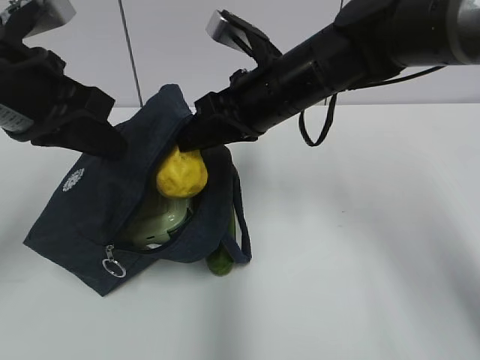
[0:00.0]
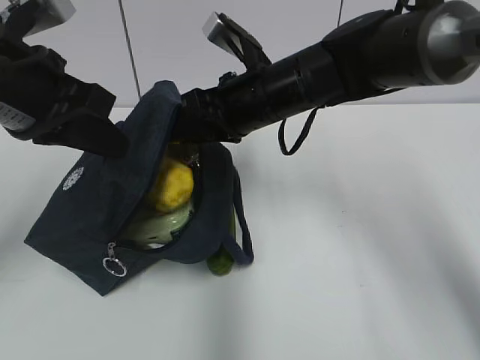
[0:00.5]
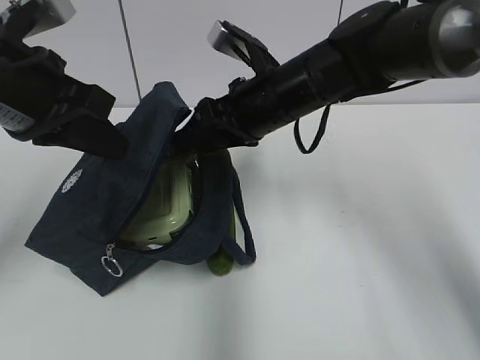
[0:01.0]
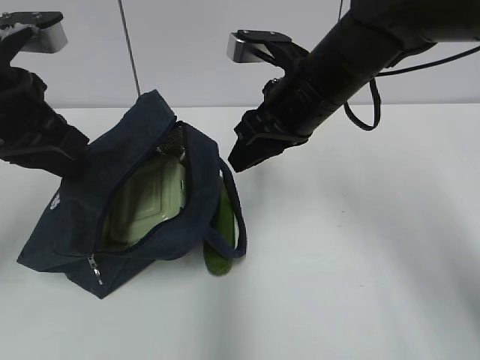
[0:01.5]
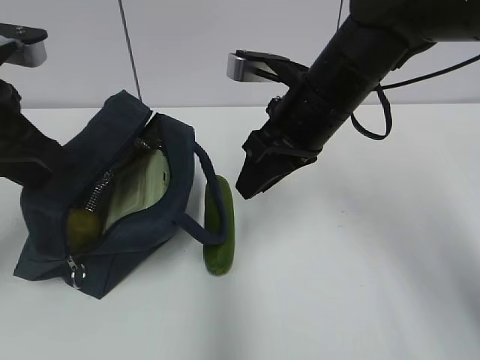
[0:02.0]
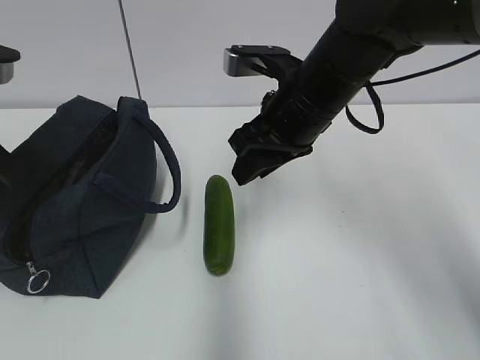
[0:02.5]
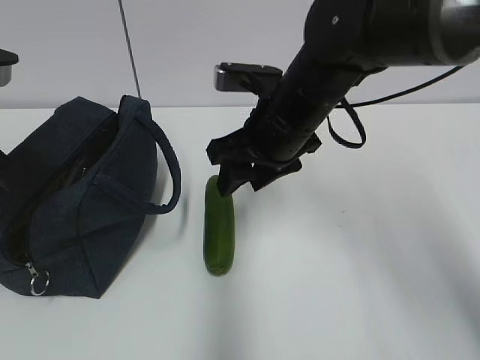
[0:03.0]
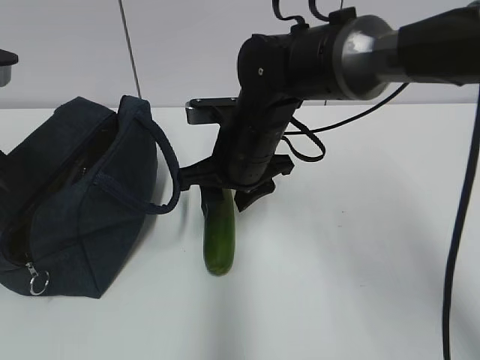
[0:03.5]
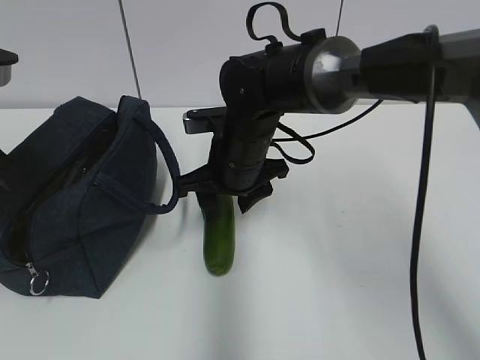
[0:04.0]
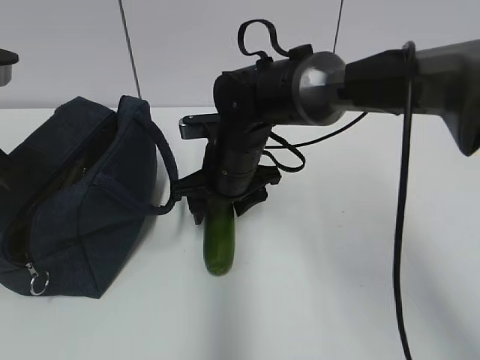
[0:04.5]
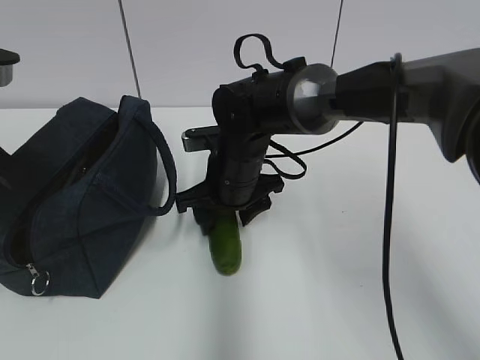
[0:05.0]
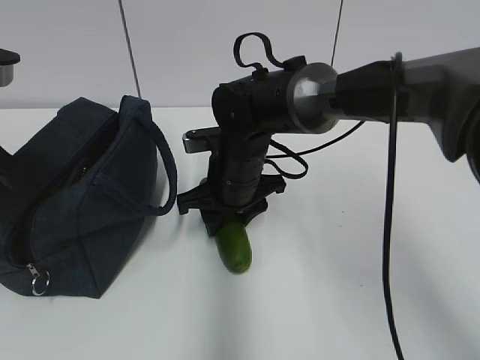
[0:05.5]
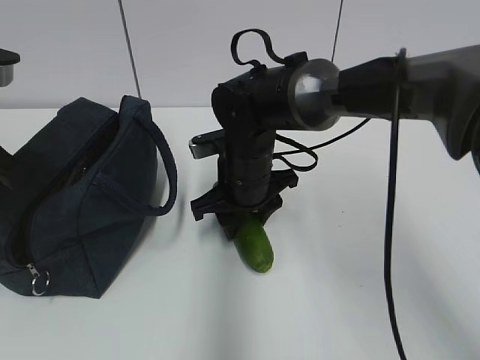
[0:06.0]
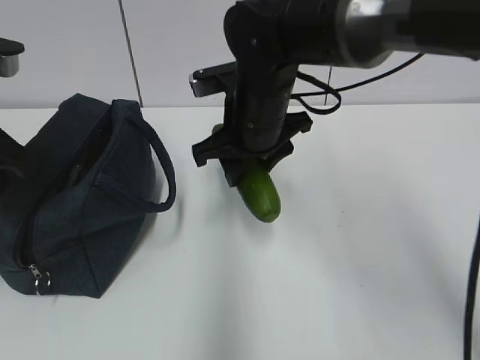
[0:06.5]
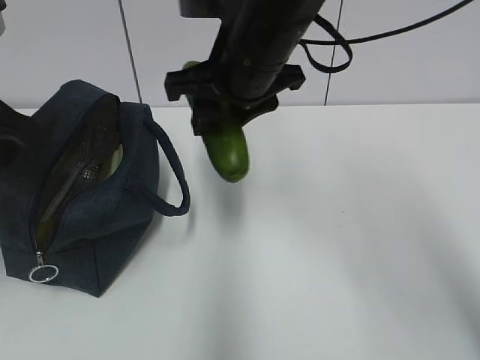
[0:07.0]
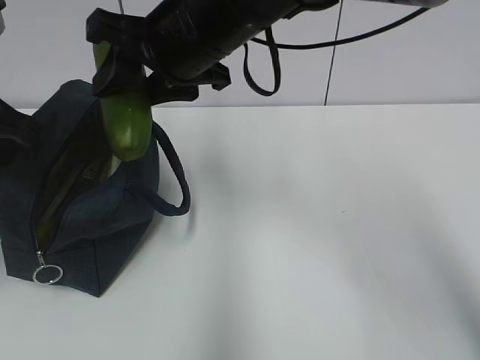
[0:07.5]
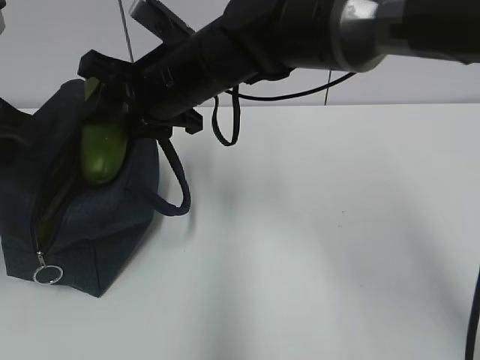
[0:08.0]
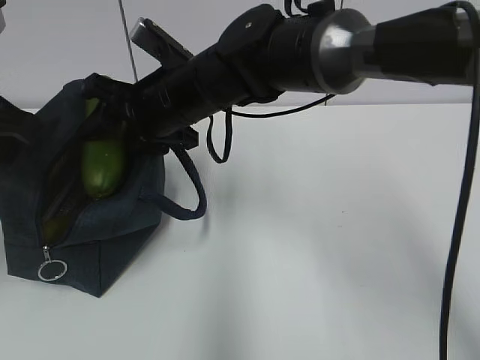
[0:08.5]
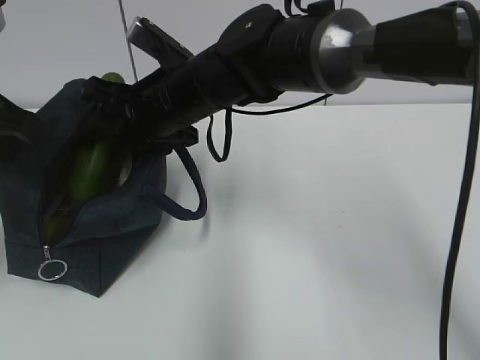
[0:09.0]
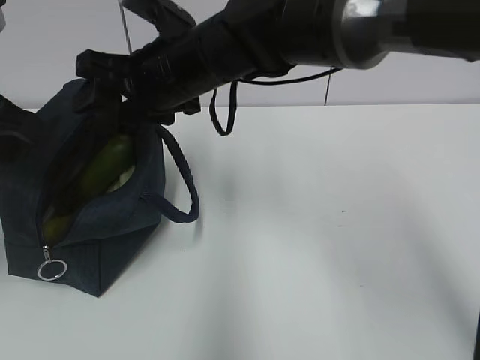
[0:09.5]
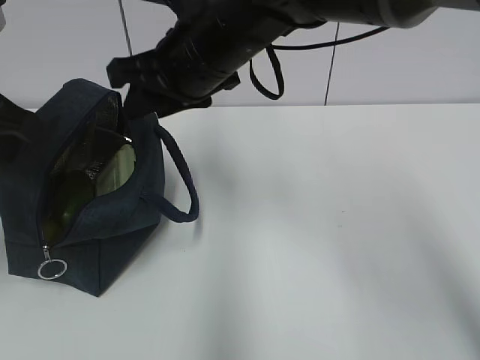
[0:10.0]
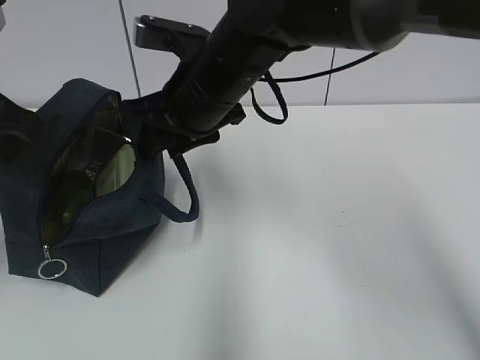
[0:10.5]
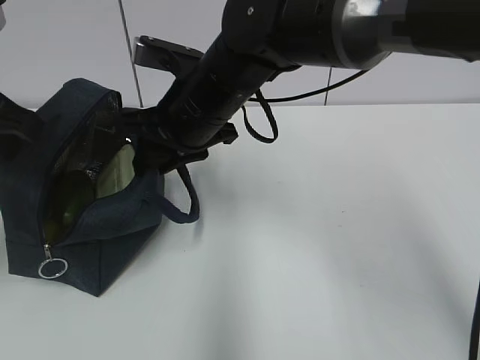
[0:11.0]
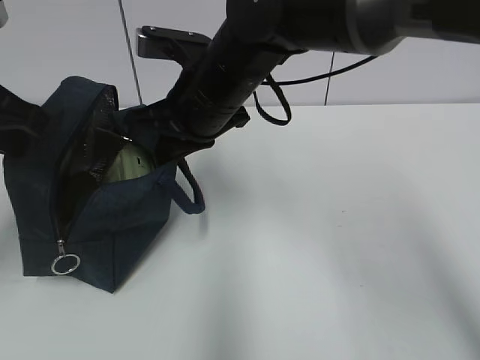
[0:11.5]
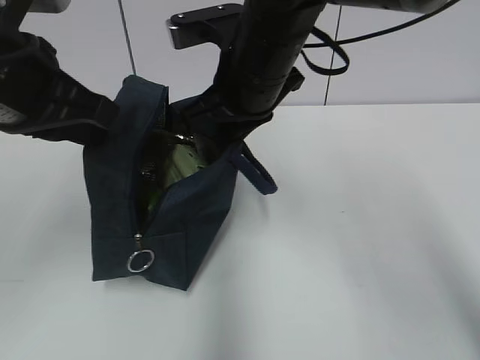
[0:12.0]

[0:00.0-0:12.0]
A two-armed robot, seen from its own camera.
0:02.0 to 0:04.0: The right gripper goes approximately 10 cm downward and to the left.
0:04.0 to 0:06.0: The grippers move only a little.
0:06.0 to 0:08.0: The right gripper moves upward and to the left, some 15 cm.
0:10.0 to 0:12.0: The right gripper closes its fingers, while the left gripper is displaced to the right by roughly 5 cm.

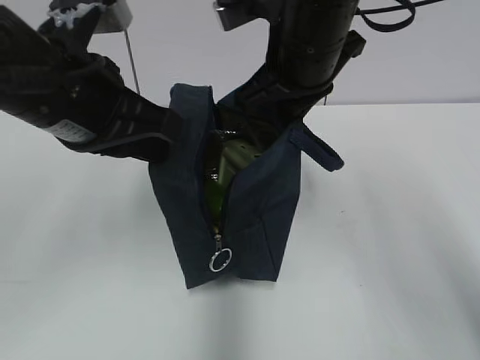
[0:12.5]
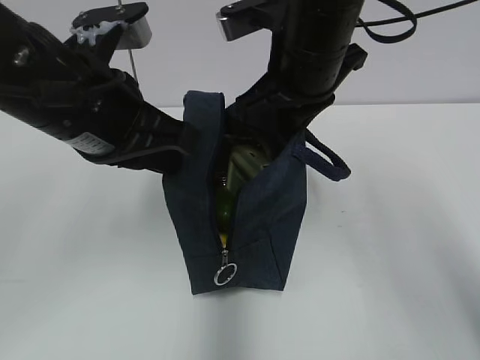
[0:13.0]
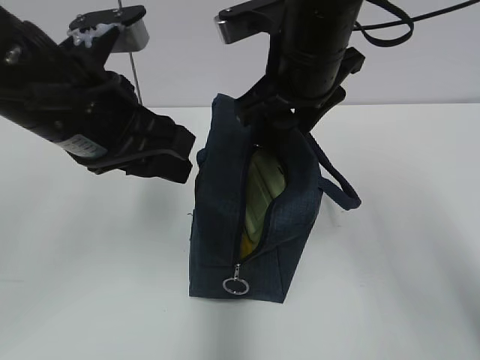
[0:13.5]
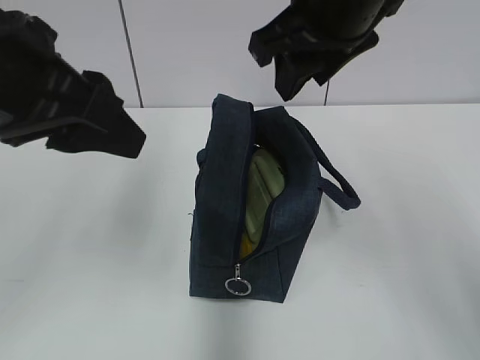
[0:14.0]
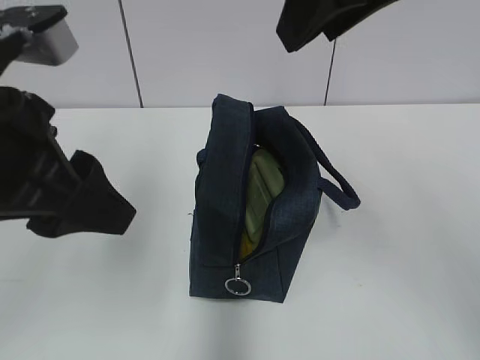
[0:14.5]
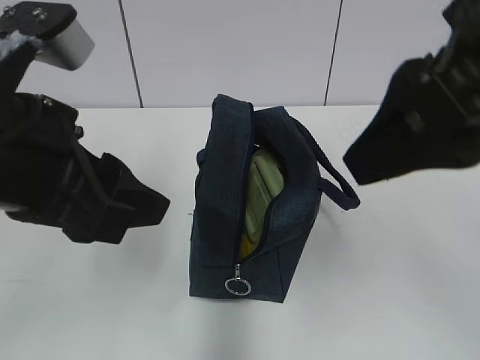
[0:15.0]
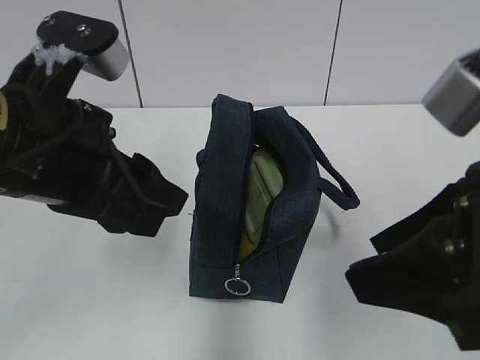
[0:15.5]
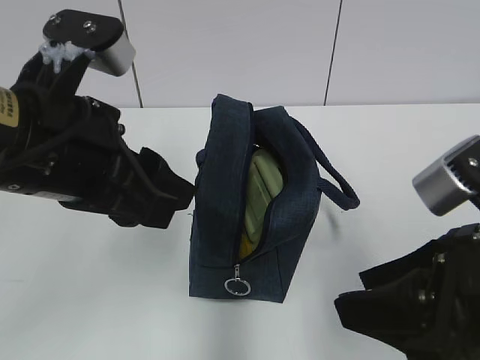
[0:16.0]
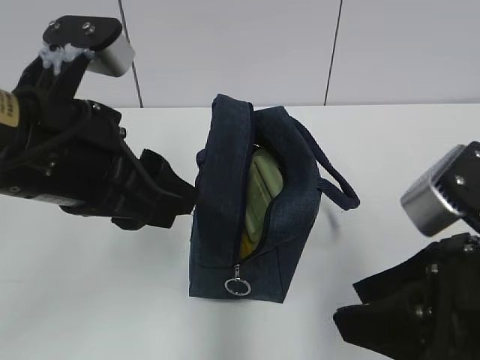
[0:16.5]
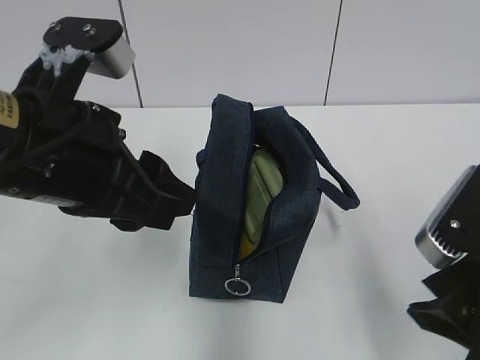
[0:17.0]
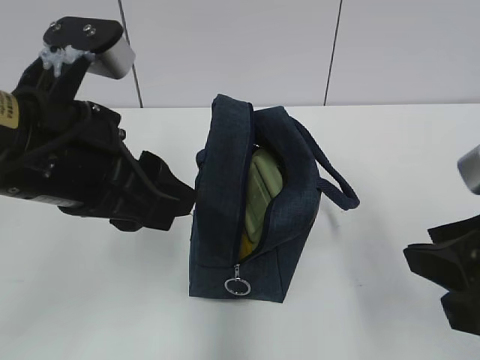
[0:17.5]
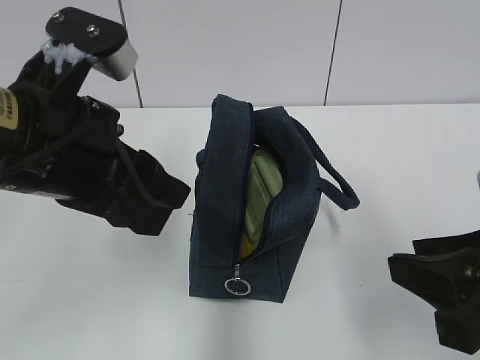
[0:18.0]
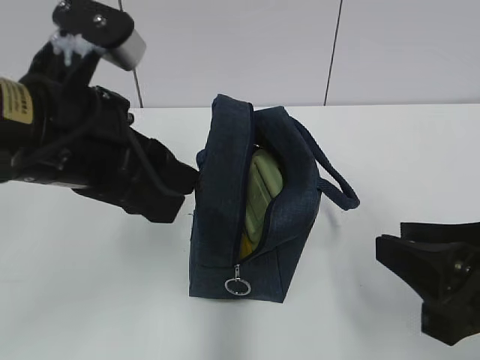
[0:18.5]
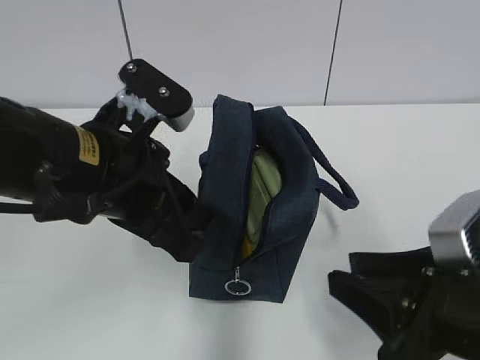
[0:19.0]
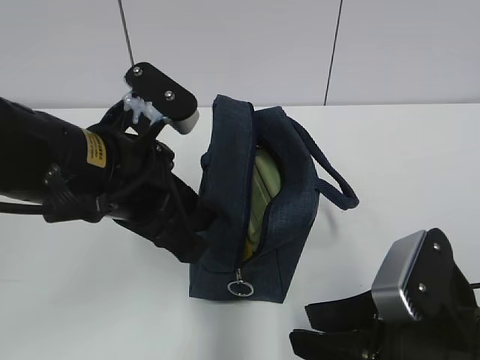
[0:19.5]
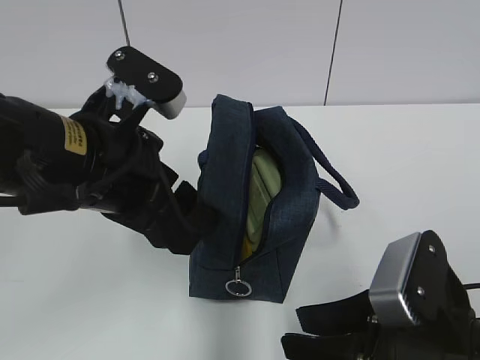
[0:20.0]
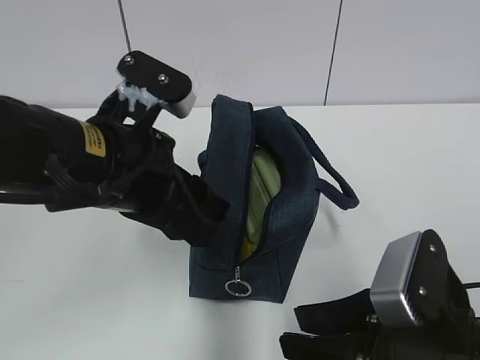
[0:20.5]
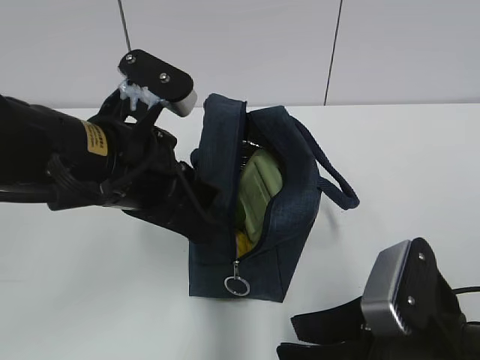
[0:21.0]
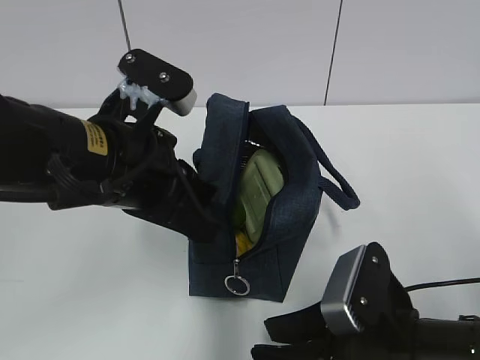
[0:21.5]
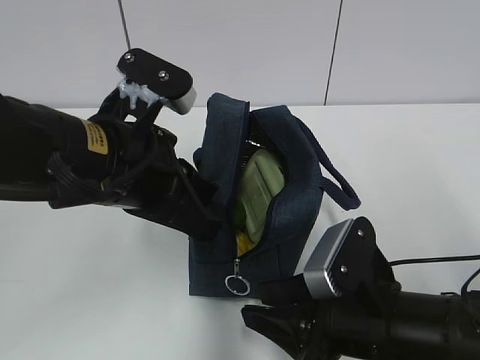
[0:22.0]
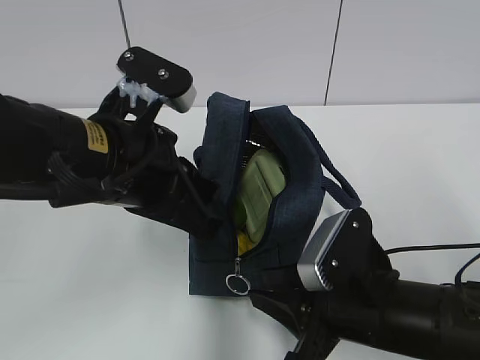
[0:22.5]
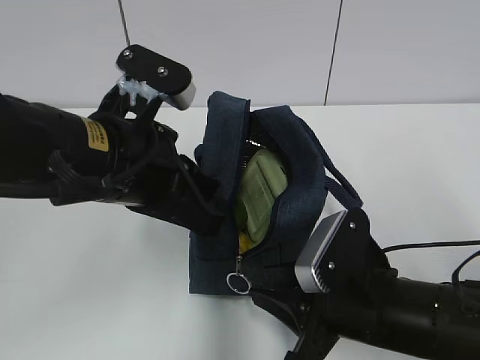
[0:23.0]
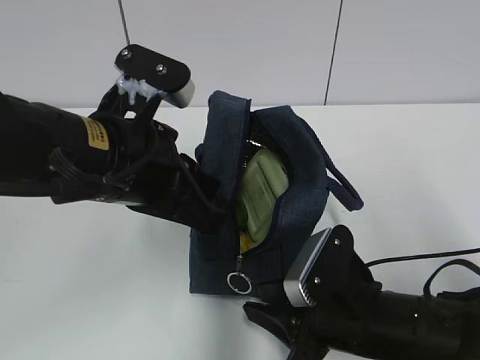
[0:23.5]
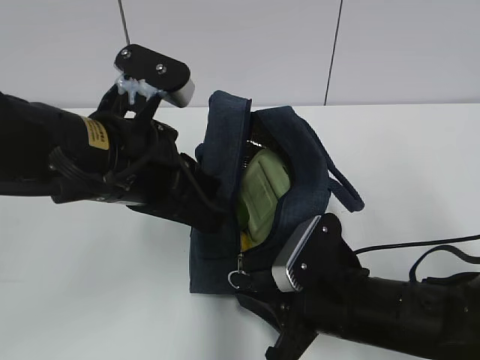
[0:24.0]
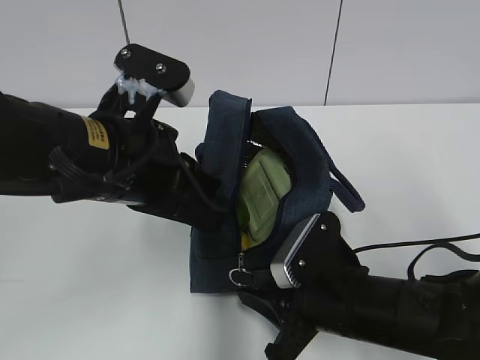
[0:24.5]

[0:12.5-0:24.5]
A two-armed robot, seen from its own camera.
0:12.5 to 0:14.5: The right gripper shifts roughly 15 cm upward and backward, and opens up; the left gripper shifts approximately 5 cm backward, and opens.
0:14.5 to 0:16.5: The right gripper goes about 20 cm downward and backward.
0:18.5 to 0:20.5: The left gripper ends up some 5 cm from where it was, while the right gripper travels downward by about 5 cm.
0:20.5 to 0:22.5: The left gripper closes its fingers. Meanwhile the right gripper moves forward, roughly 5 cm.
0:22.5 to 0:24.5: The grippers make only small movements.

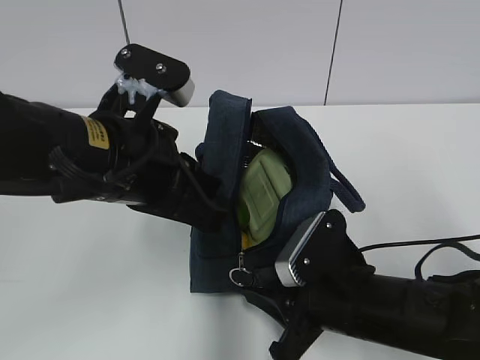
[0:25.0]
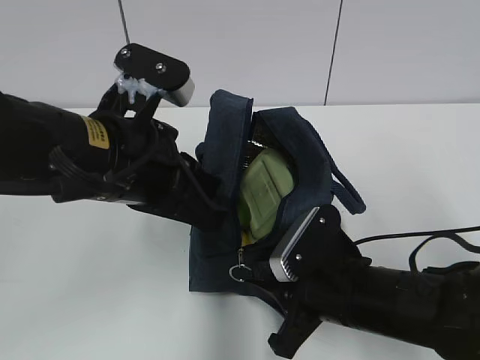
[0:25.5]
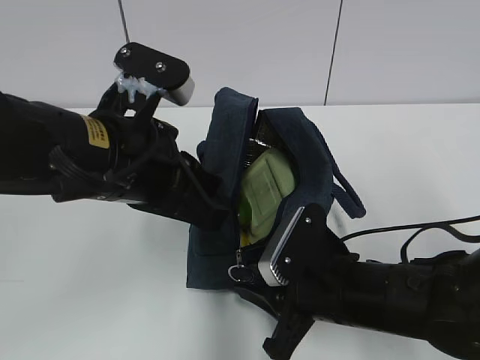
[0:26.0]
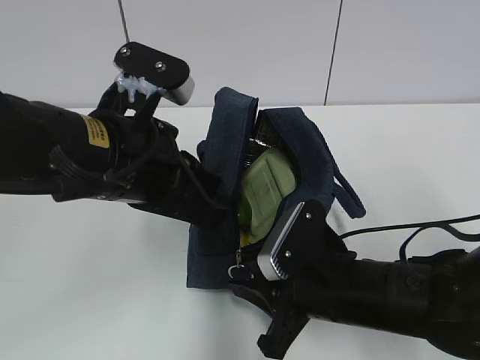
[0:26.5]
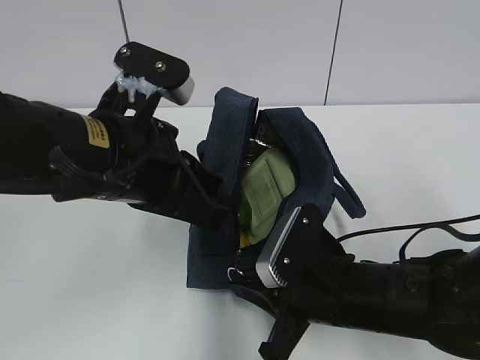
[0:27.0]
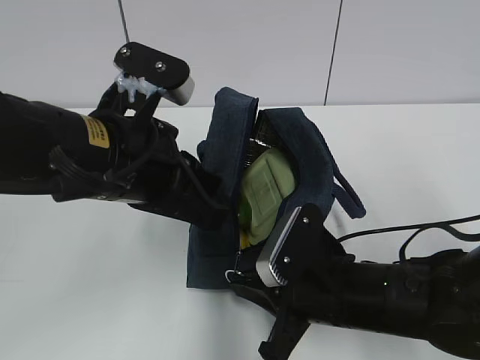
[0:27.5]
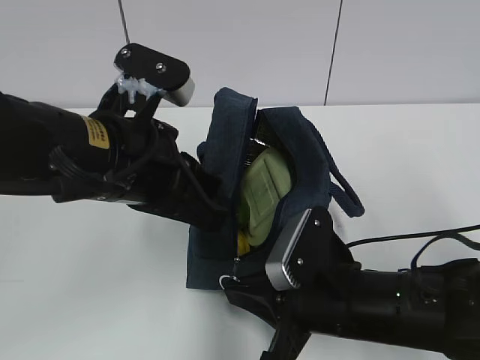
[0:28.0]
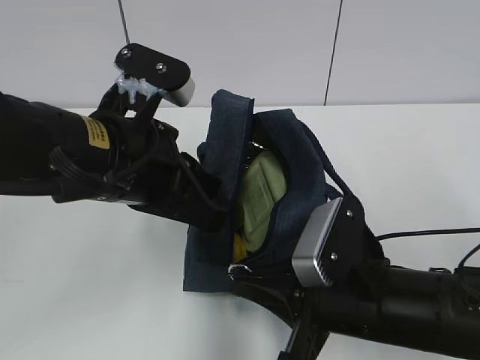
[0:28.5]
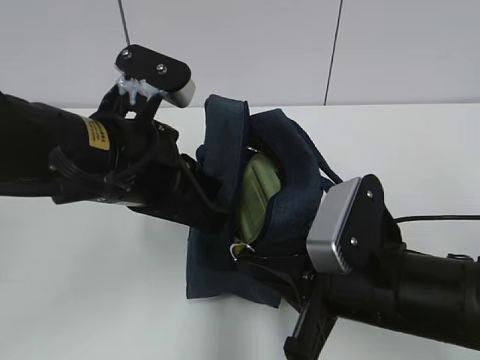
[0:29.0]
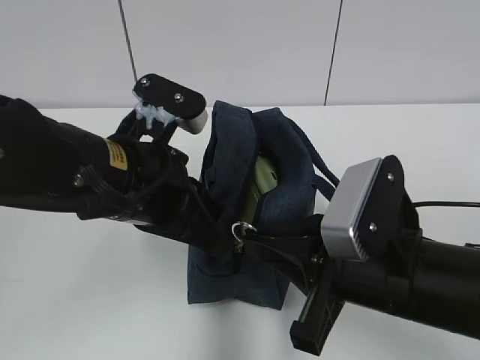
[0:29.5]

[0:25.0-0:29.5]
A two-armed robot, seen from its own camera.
0:25.0 to 0:27.0: There are only small adjustments of the grippers.
0:27.0 to 0:29.5: The right gripper goes some 10 cm upward.
